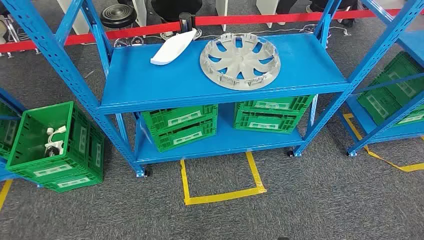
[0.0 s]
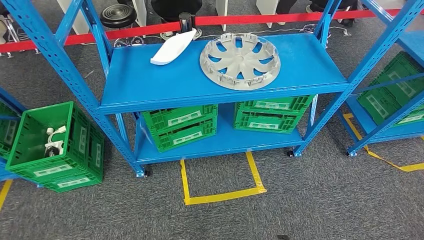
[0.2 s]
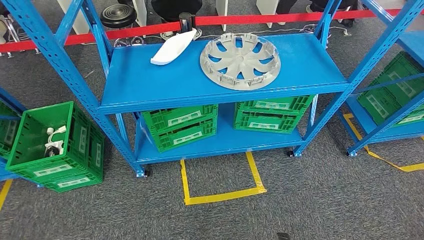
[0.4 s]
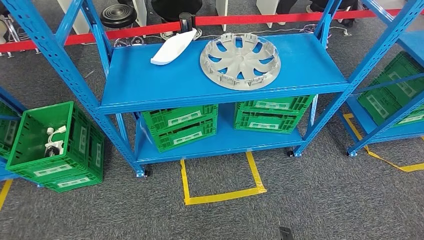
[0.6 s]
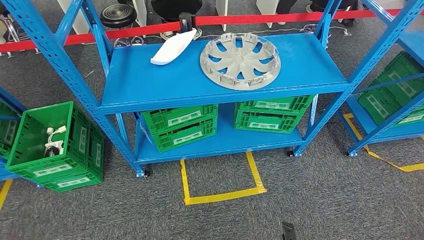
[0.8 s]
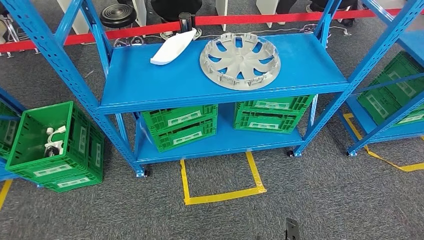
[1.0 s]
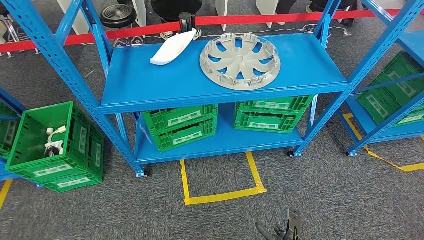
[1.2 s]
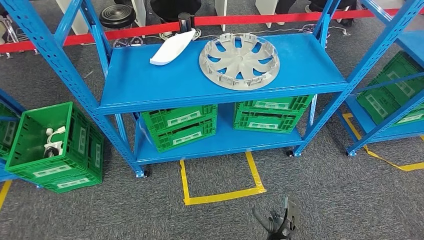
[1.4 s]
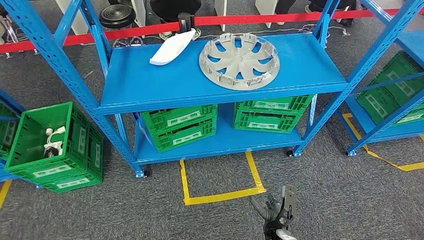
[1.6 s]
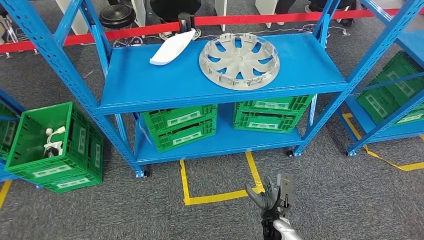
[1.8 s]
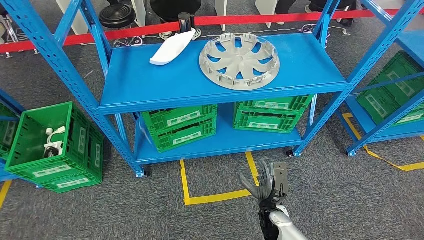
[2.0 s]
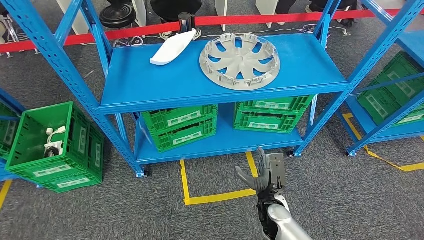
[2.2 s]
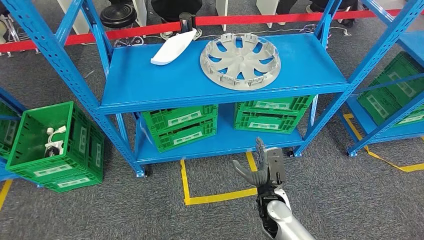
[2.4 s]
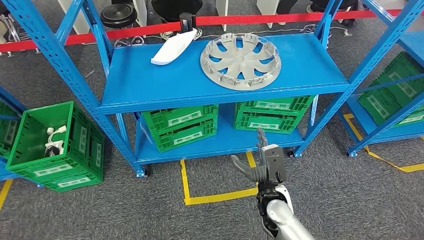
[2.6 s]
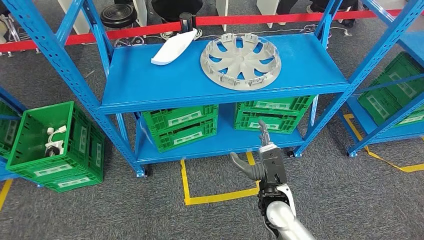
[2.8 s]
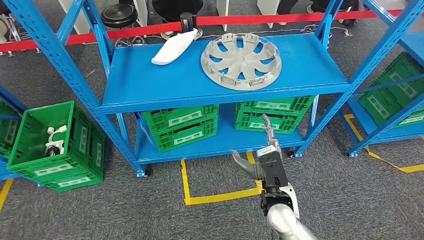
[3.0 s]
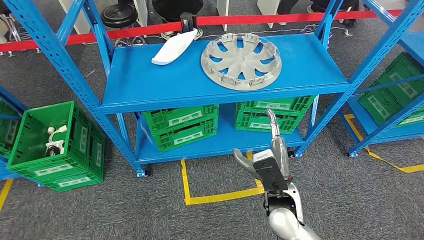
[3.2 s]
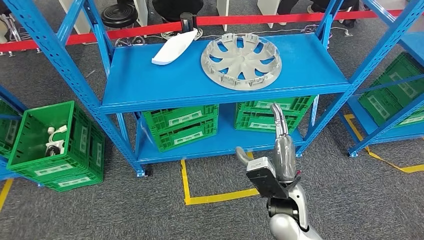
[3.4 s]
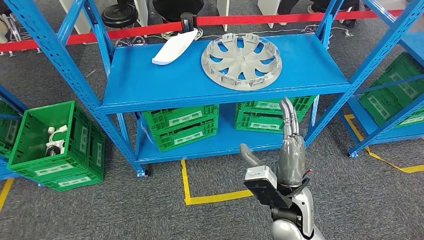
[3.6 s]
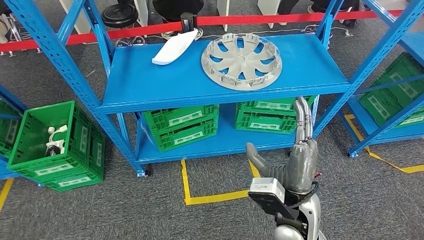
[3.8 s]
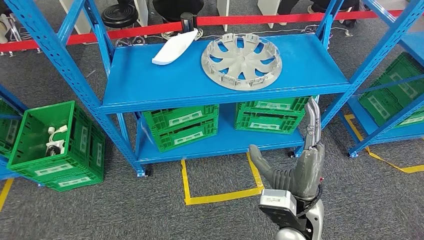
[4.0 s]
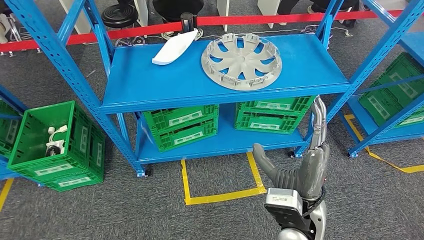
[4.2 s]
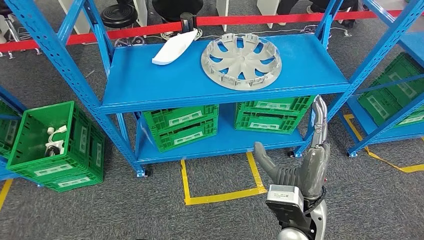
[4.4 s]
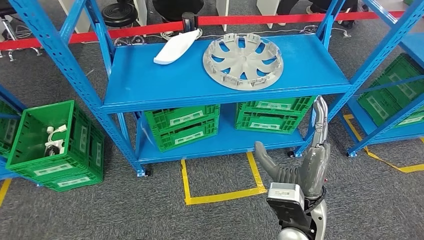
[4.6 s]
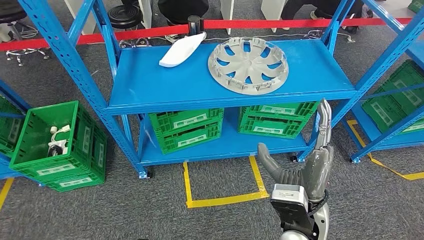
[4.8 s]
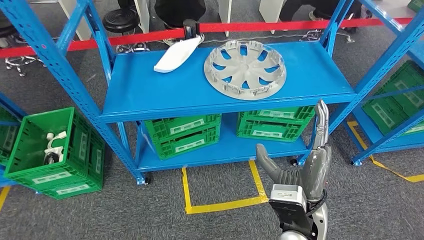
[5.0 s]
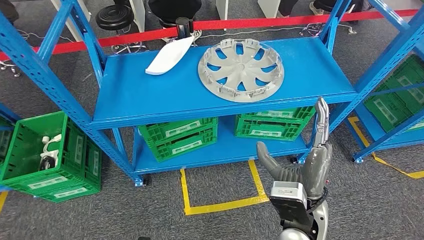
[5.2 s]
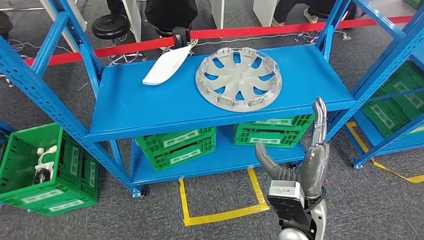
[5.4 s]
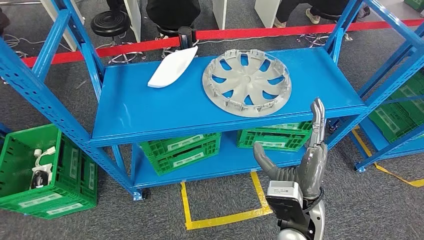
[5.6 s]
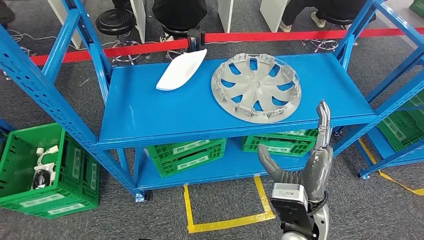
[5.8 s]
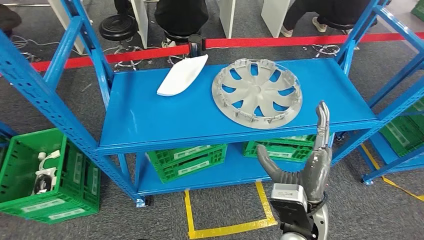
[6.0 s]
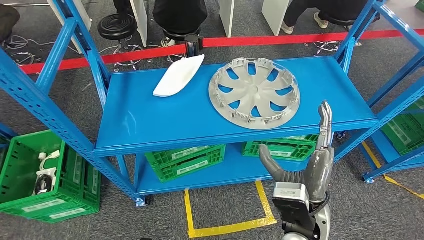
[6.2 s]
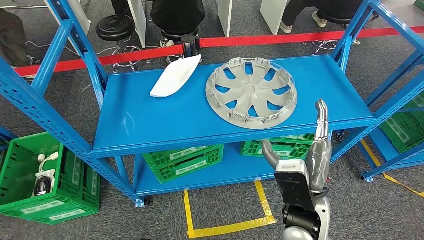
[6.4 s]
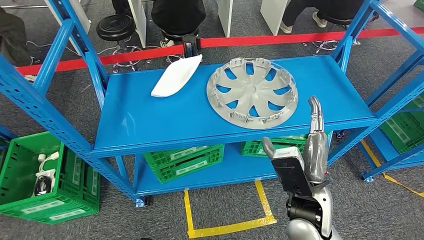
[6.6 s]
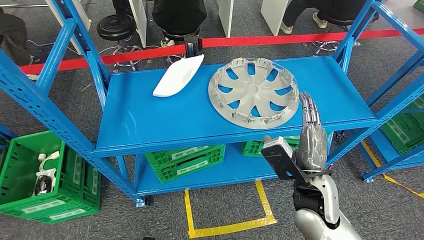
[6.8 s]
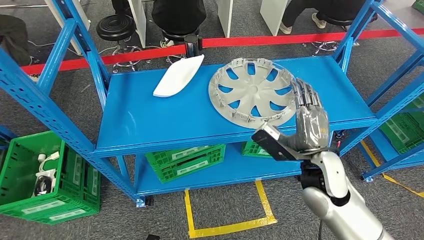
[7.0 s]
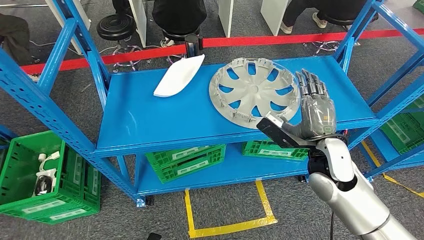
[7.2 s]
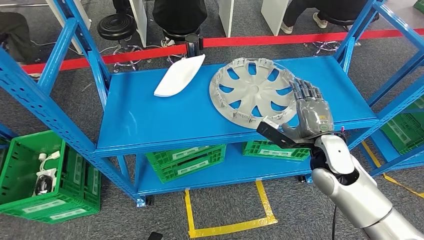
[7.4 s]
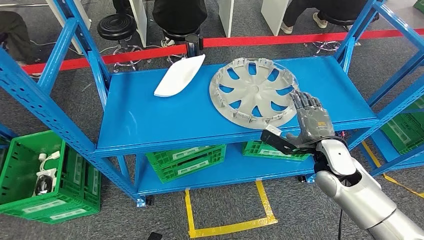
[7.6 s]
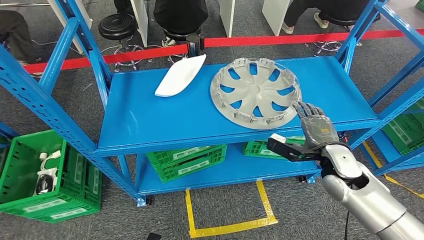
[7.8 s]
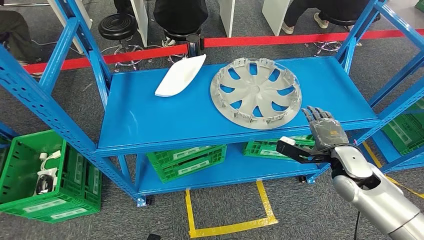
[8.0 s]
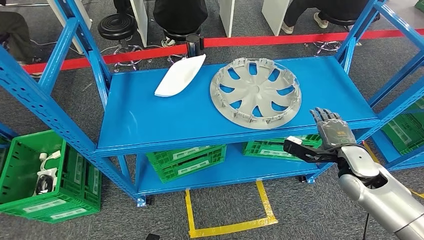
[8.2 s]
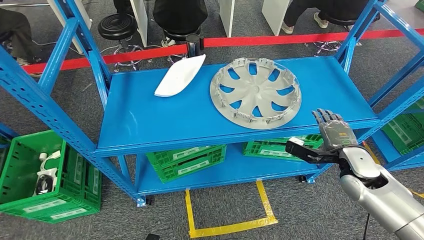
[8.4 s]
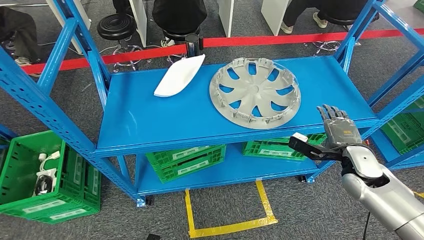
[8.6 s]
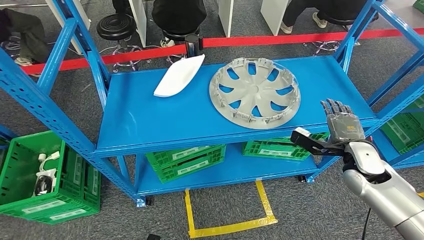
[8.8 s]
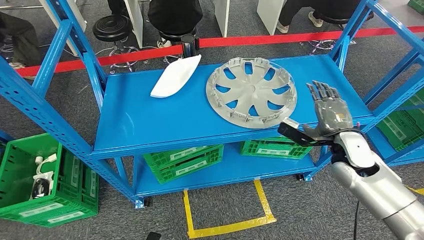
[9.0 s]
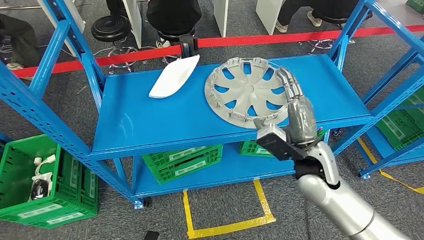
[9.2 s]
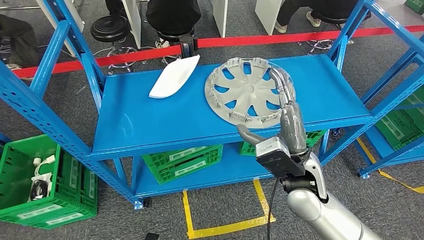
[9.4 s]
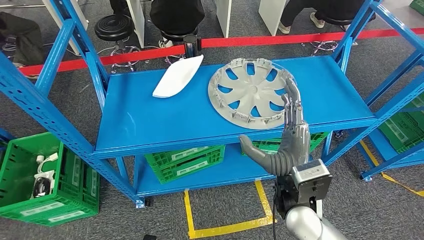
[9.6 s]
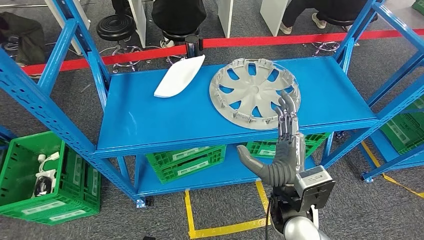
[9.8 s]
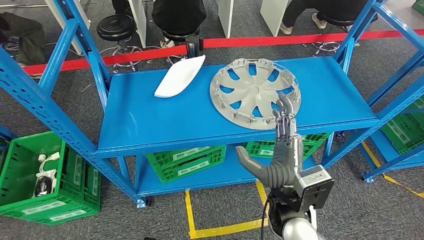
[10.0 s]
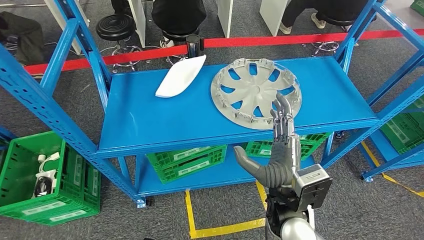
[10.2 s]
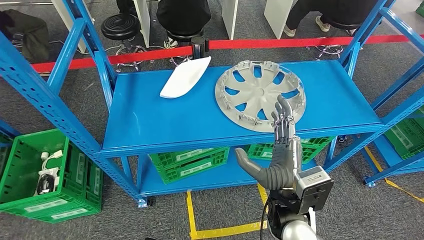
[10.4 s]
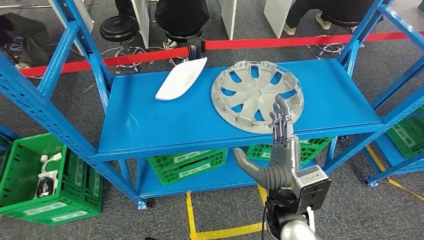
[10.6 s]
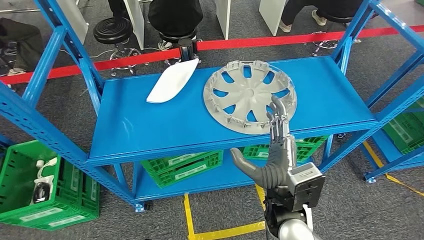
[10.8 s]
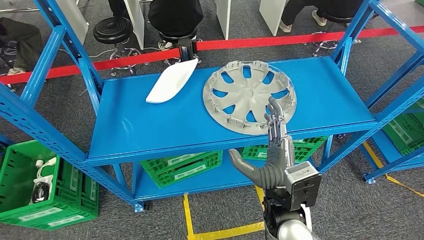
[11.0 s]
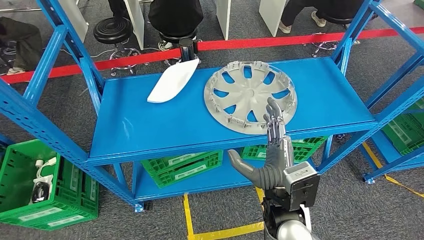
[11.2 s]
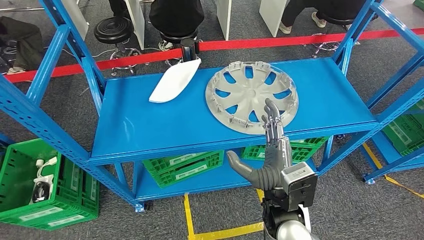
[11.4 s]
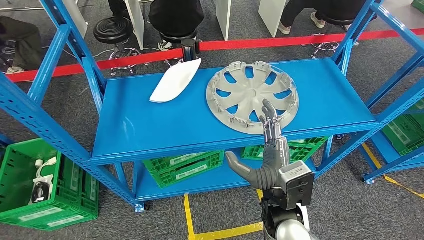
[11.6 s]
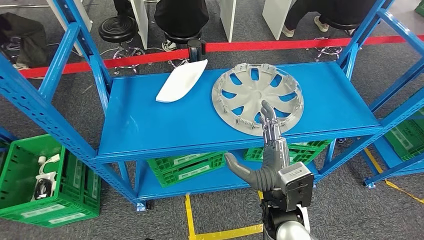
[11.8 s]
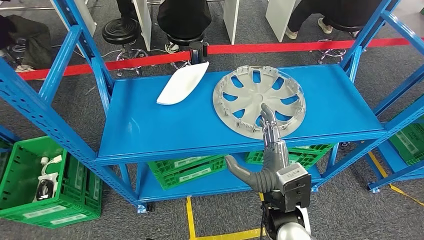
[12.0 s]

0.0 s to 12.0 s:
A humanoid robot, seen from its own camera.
1.6 to 3.0 s: The right hand shifts some 20 cm upward.
3.0 to 4.4 s: The right hand is displaced upward by roughly 10 cm.

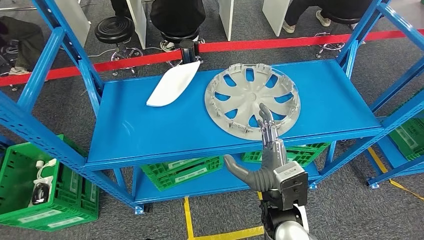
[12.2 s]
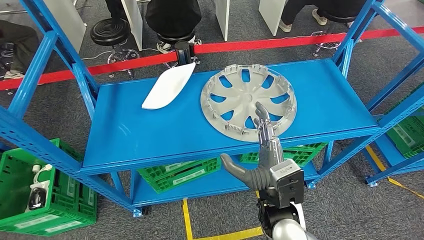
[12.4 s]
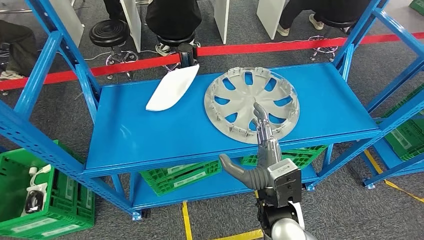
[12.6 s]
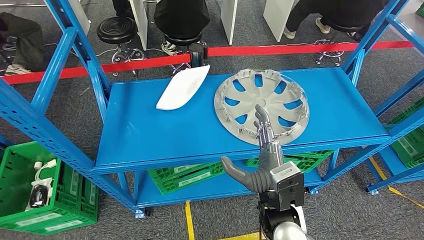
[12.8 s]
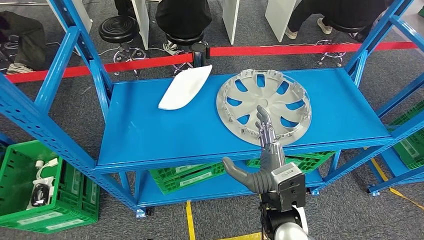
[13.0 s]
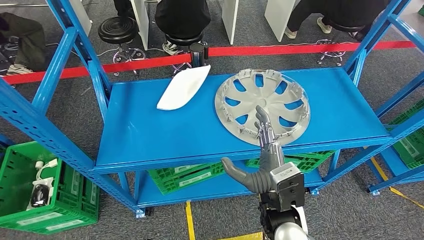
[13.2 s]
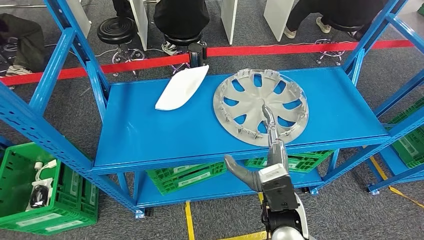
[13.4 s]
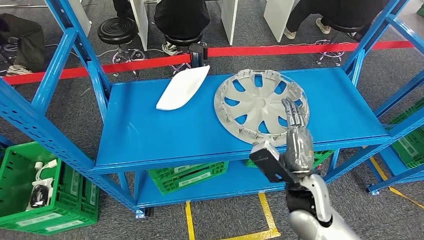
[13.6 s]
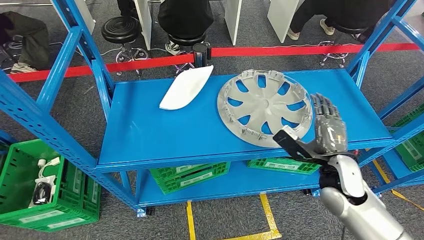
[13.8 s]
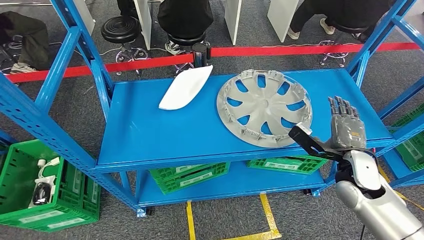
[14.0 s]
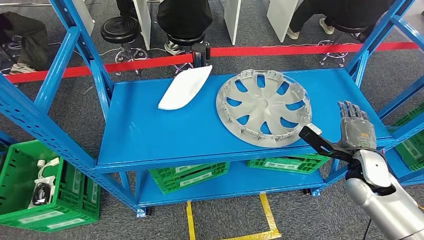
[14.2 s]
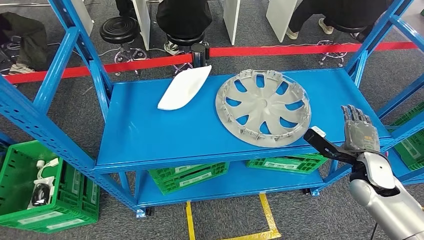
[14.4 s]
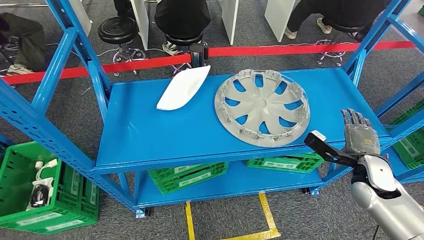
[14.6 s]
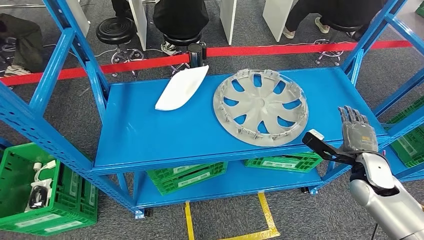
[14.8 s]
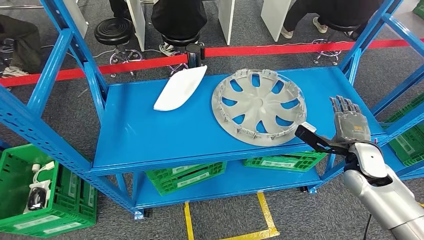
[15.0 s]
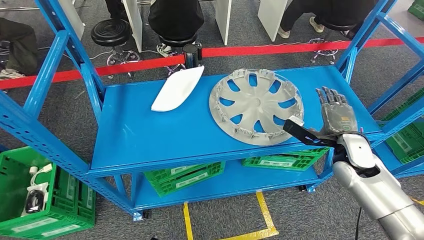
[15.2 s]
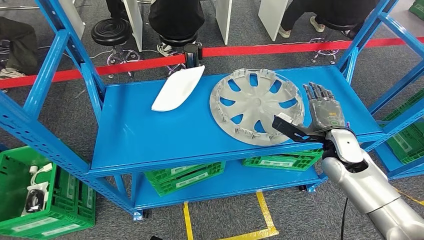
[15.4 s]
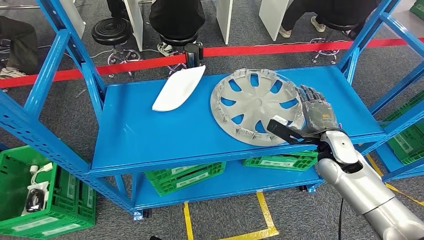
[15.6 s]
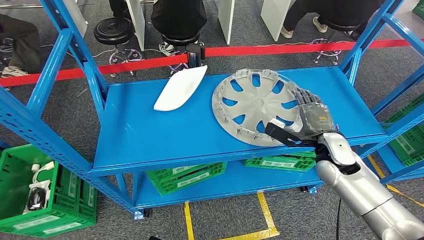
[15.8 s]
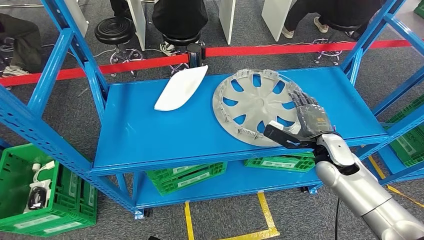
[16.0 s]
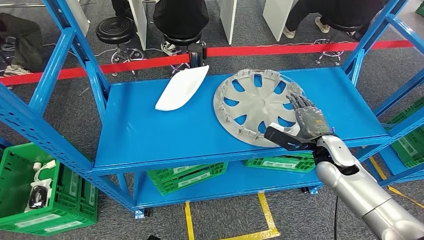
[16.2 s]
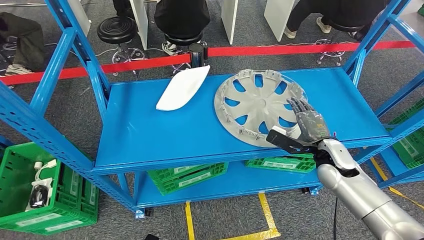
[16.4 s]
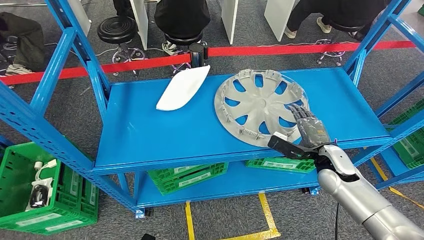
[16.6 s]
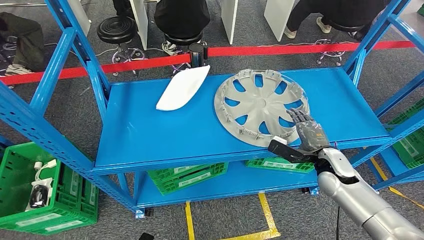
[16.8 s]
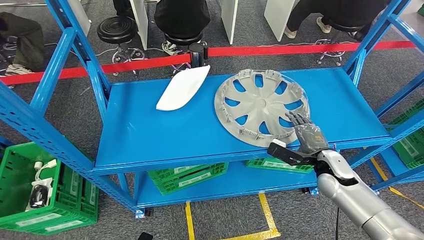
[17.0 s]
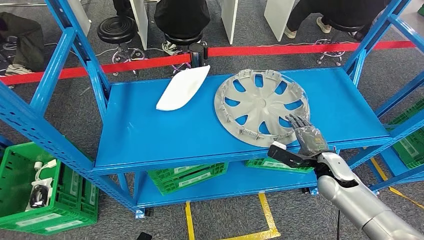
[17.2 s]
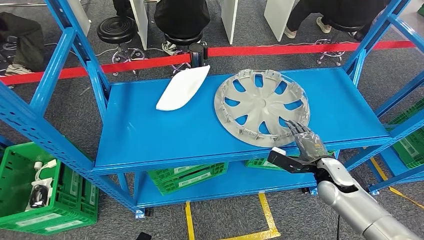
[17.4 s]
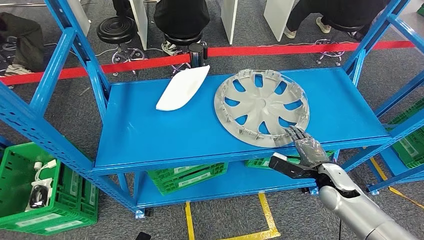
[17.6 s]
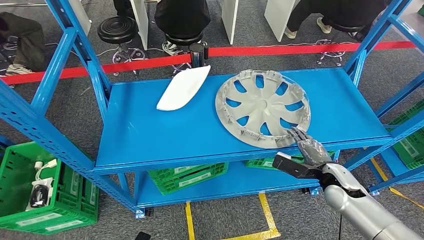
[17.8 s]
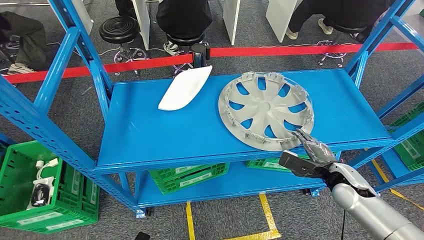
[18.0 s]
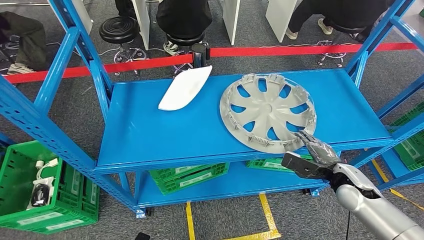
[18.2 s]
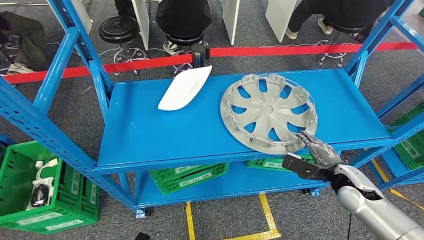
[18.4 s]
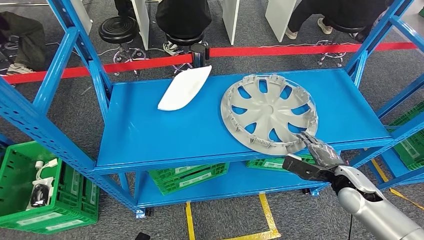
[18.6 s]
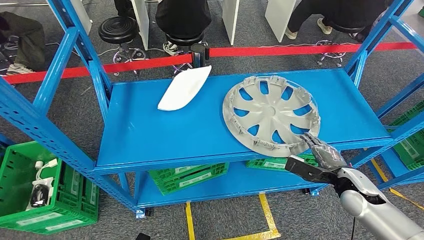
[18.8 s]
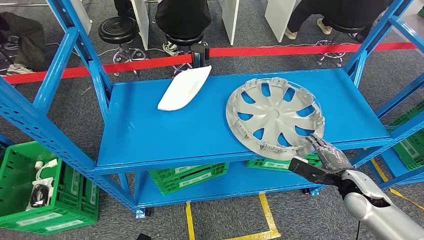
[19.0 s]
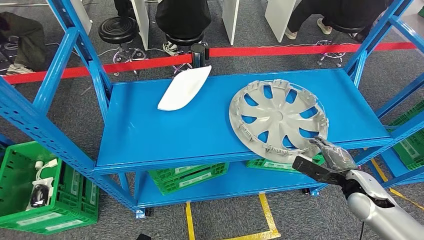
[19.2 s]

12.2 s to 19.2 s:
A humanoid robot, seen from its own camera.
16.4 to 17.8 s: The right hand moves downward, some 5 cm.
17.8 to 19.2 s: The right hand ends up roughly 5 cm from where it was.
